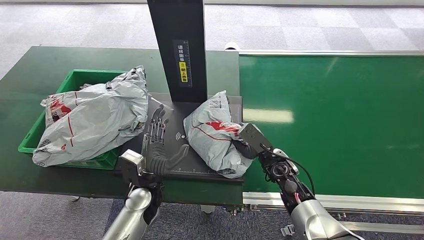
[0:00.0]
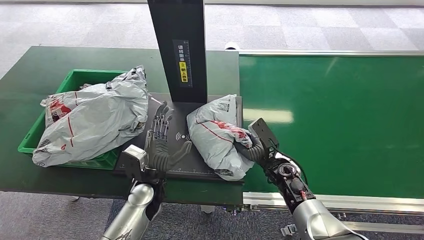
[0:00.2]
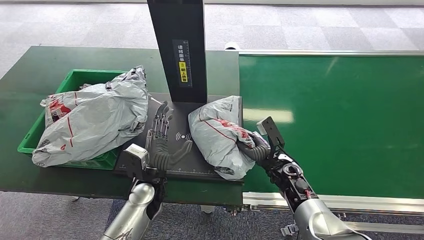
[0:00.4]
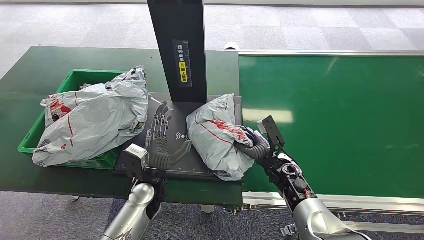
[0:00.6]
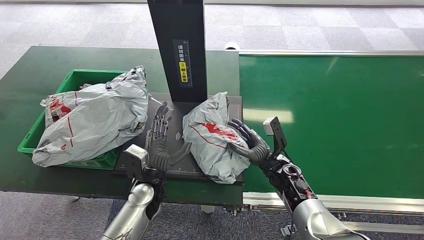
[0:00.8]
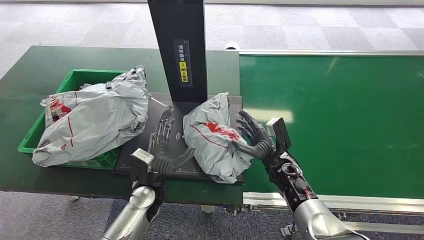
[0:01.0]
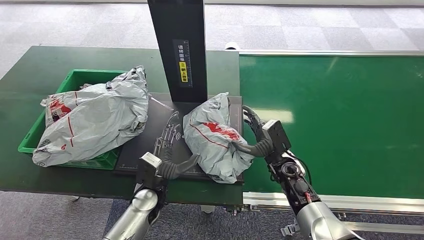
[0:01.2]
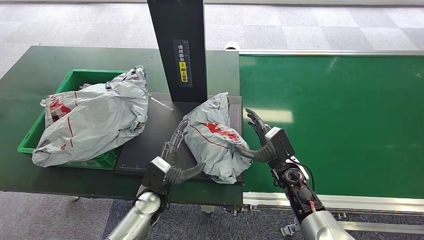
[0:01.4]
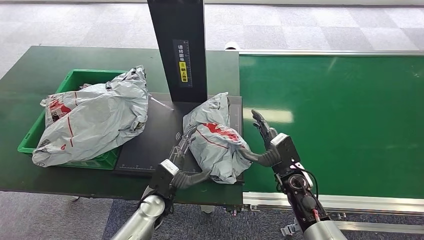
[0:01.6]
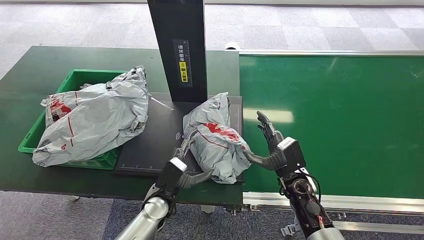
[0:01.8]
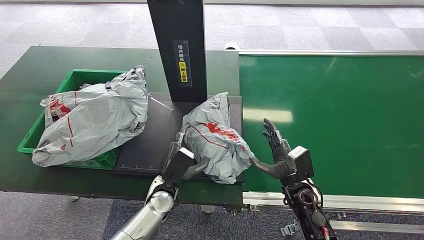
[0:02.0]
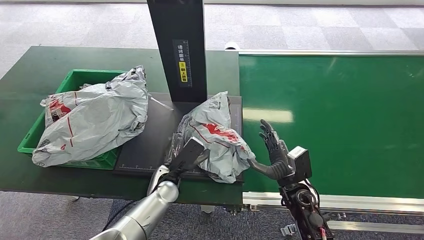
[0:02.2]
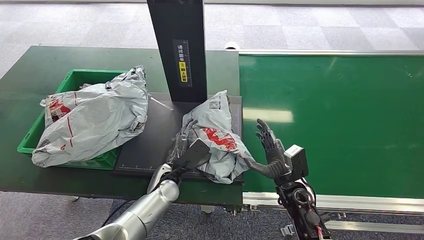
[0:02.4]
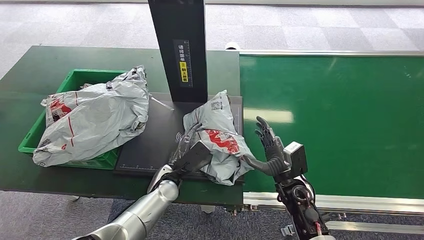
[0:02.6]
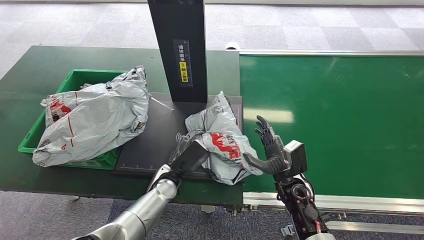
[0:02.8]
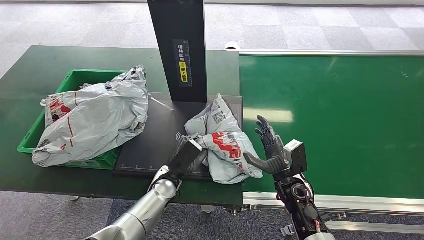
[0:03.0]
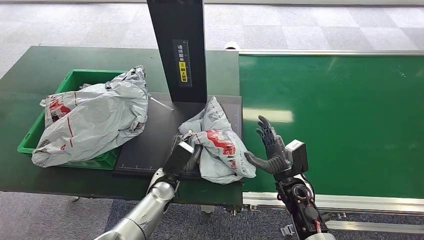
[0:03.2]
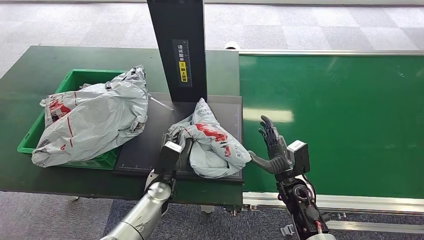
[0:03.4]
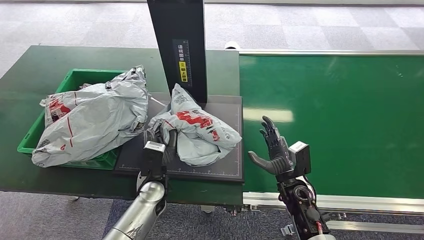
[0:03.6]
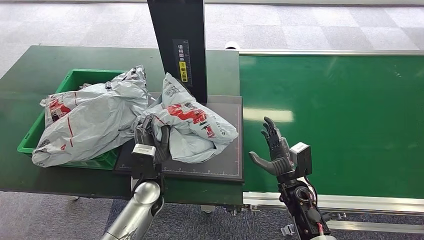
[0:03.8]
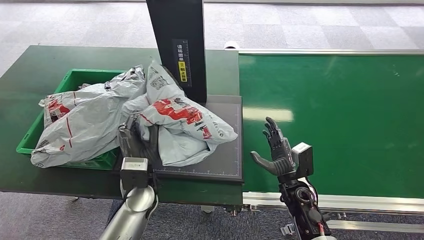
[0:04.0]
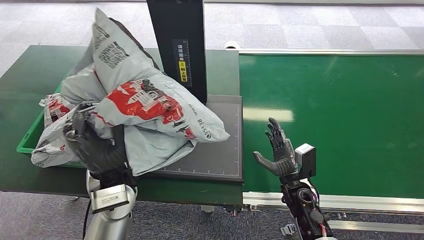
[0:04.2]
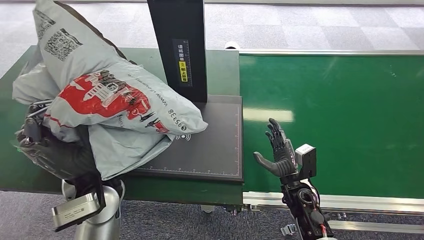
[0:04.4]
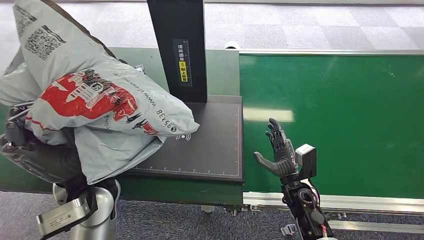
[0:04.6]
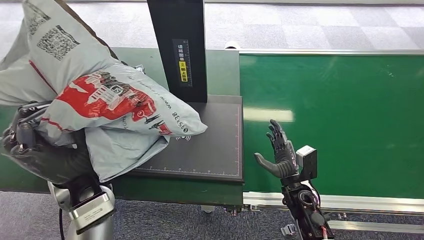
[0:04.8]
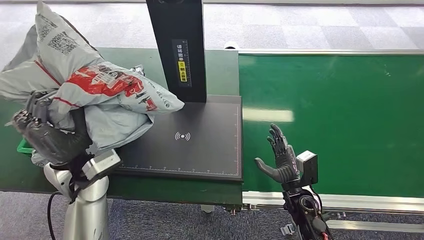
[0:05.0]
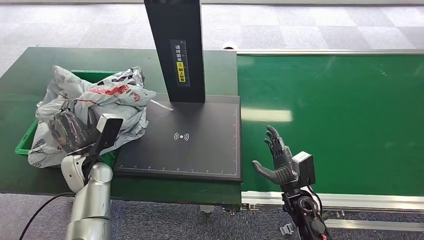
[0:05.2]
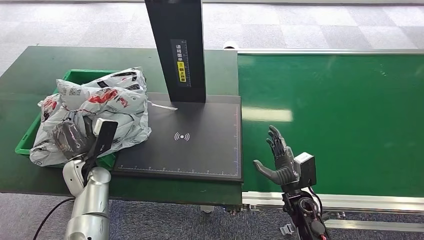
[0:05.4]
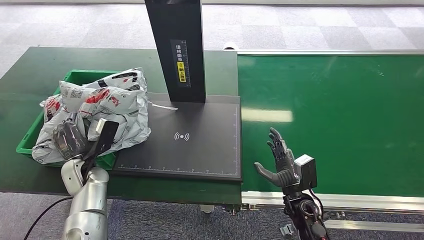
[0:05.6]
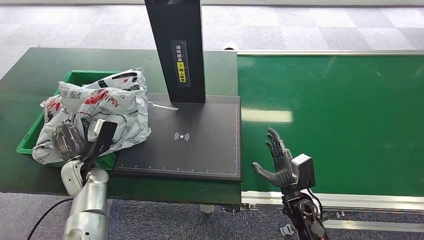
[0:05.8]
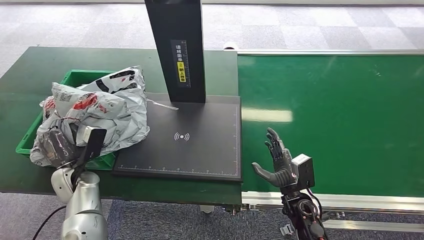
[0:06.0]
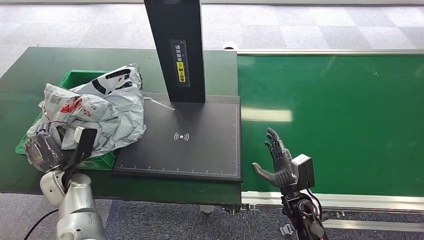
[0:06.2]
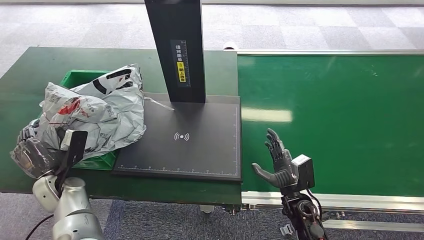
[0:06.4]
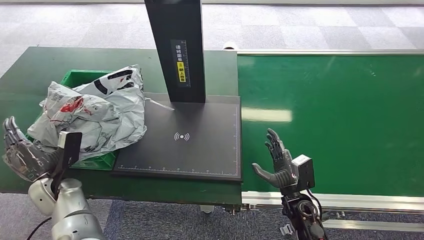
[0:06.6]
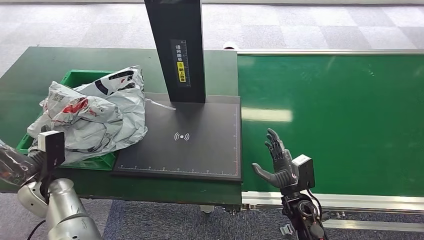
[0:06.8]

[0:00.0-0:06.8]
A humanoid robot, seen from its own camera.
Step, 0:01.6 to 0:03.8: Pick up the package from the inbound machine.
Step, 0:04.0 to 0:06.8: Place the package into the parcel locker.
0:02.8 to 0:04.0: The left hand goes some 10 cm upward.
0:05.4 to 0:06.8: The left hand goes approximately 5 cm to the left.
